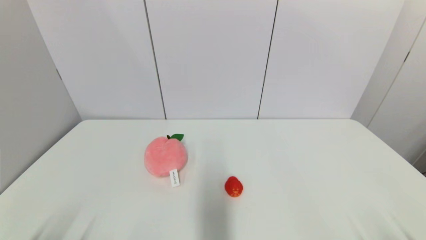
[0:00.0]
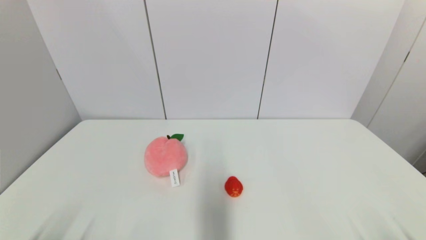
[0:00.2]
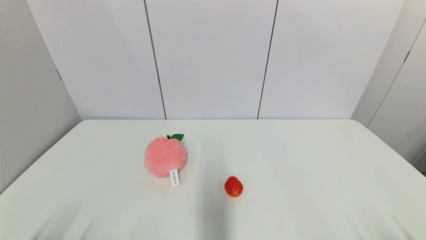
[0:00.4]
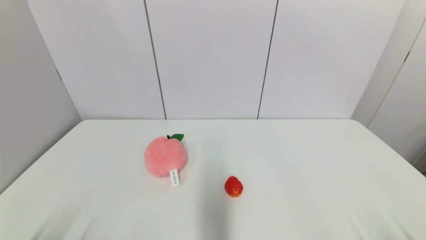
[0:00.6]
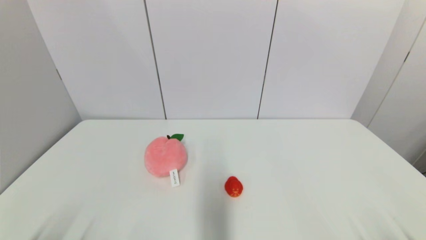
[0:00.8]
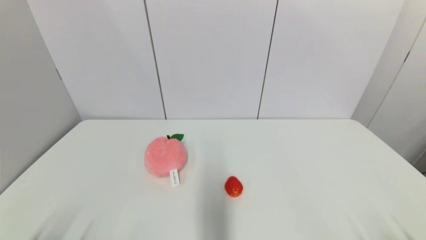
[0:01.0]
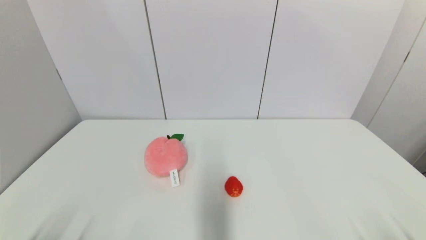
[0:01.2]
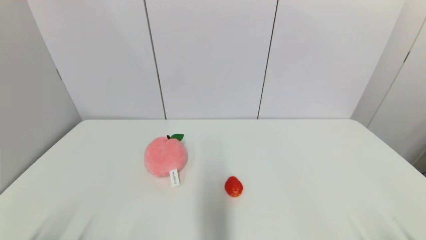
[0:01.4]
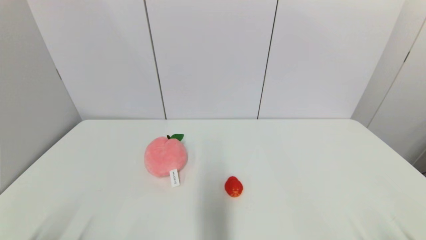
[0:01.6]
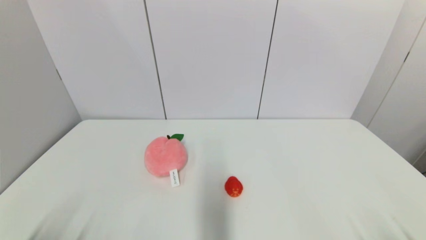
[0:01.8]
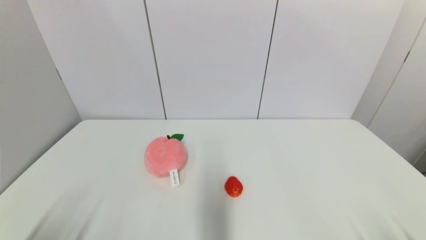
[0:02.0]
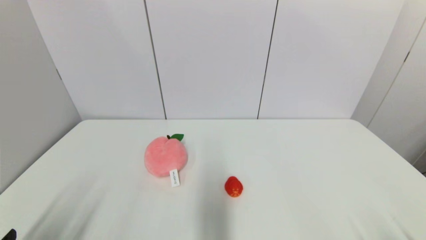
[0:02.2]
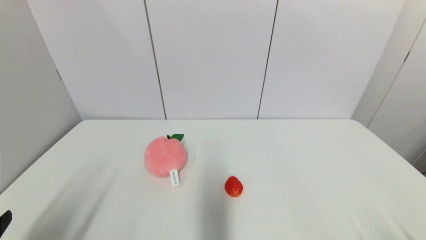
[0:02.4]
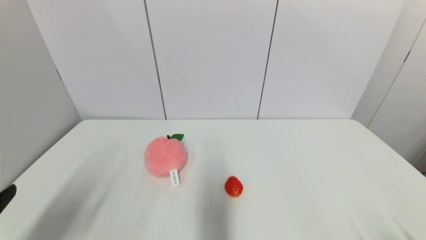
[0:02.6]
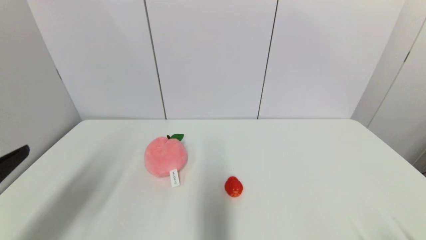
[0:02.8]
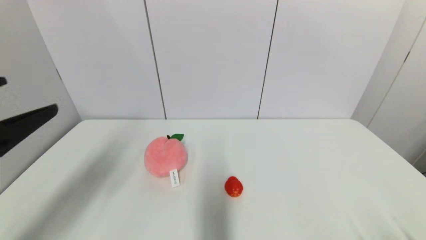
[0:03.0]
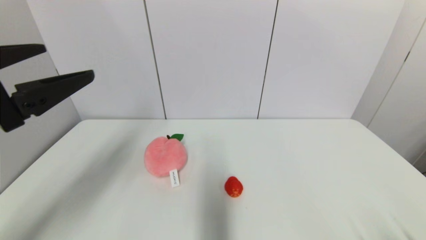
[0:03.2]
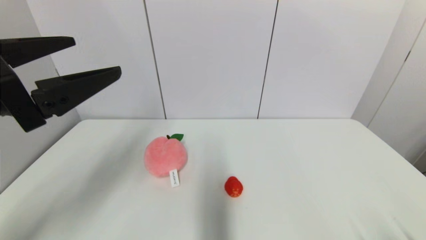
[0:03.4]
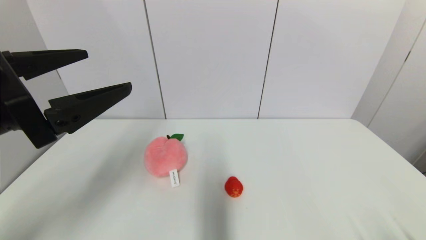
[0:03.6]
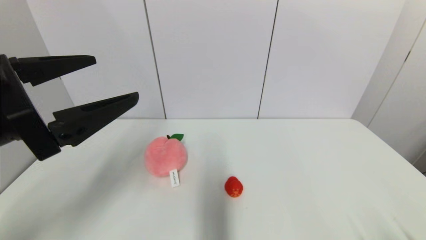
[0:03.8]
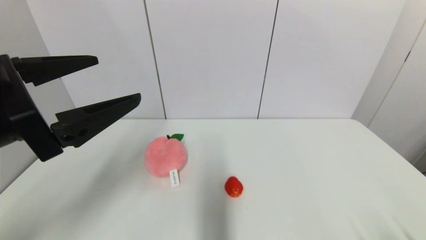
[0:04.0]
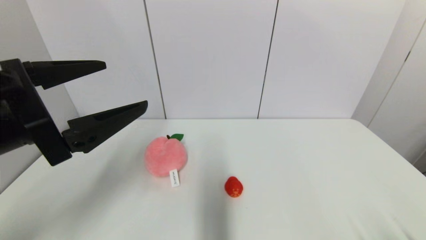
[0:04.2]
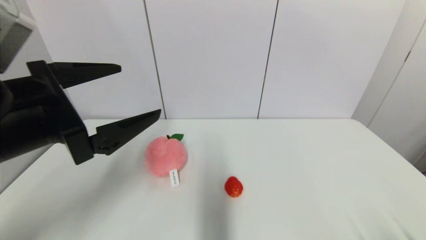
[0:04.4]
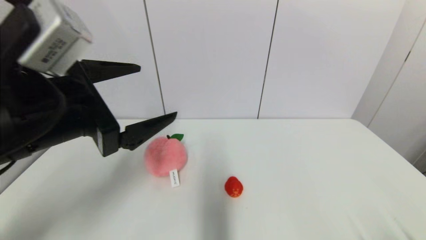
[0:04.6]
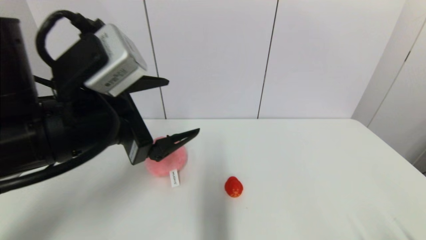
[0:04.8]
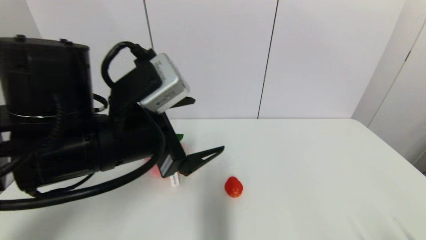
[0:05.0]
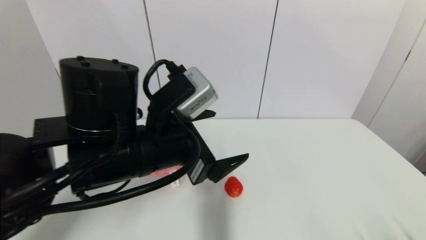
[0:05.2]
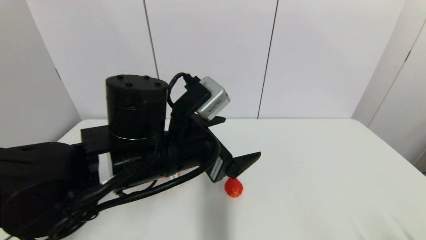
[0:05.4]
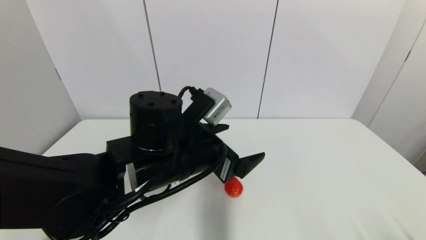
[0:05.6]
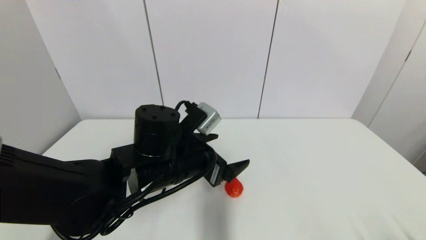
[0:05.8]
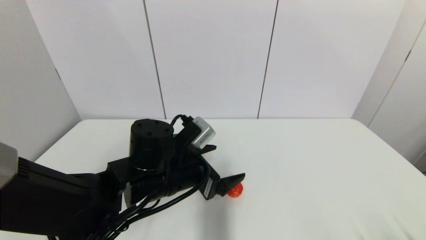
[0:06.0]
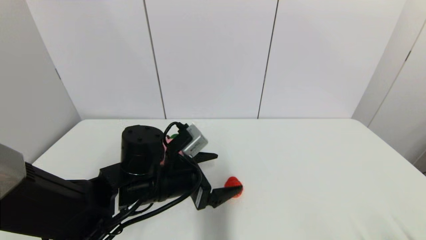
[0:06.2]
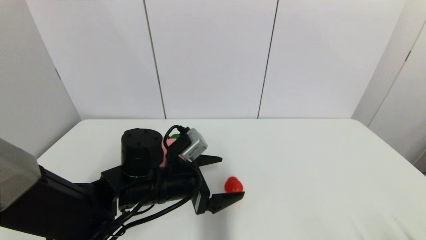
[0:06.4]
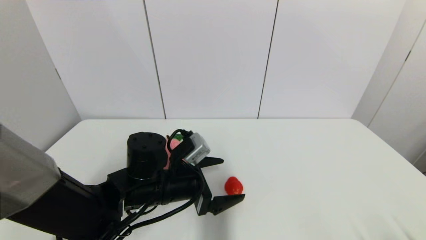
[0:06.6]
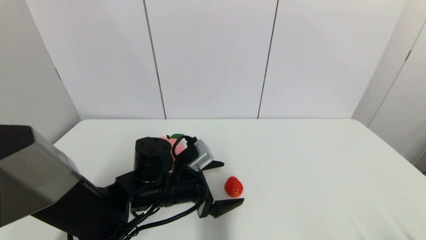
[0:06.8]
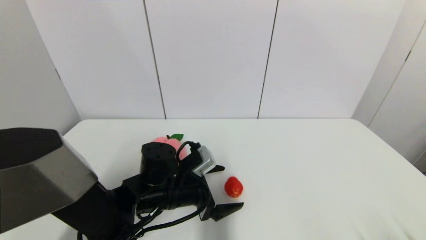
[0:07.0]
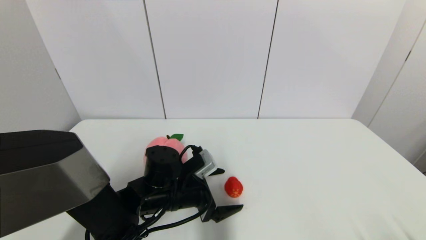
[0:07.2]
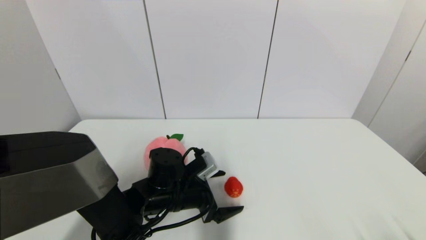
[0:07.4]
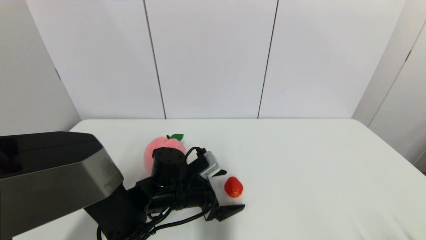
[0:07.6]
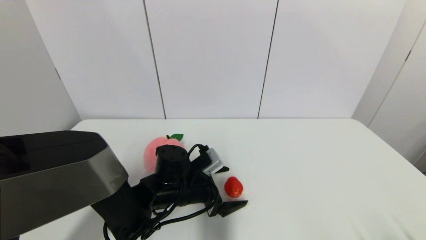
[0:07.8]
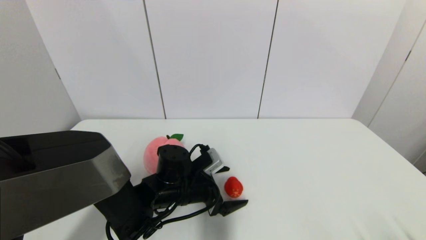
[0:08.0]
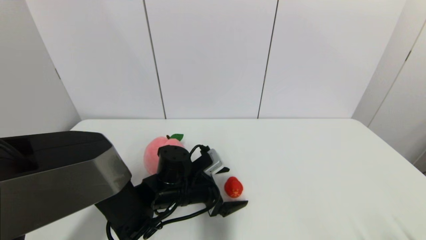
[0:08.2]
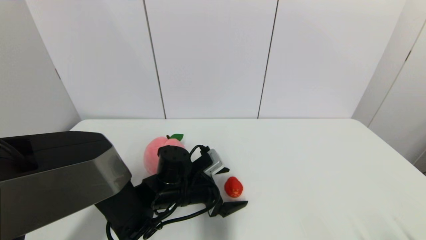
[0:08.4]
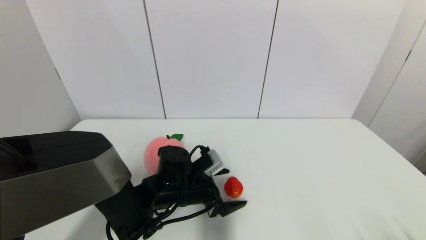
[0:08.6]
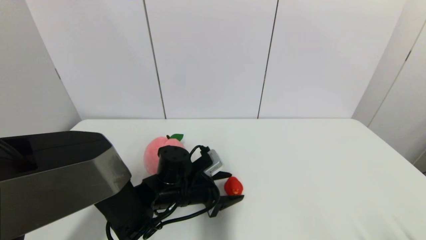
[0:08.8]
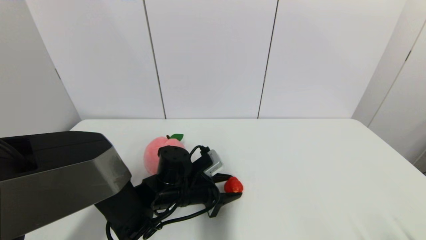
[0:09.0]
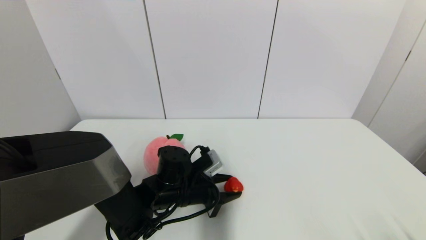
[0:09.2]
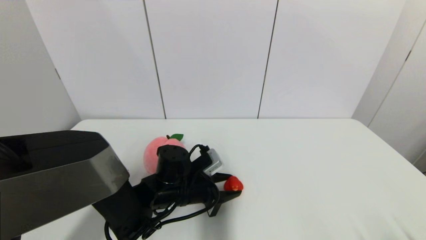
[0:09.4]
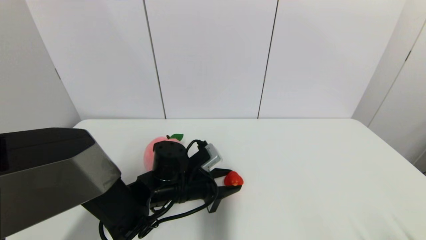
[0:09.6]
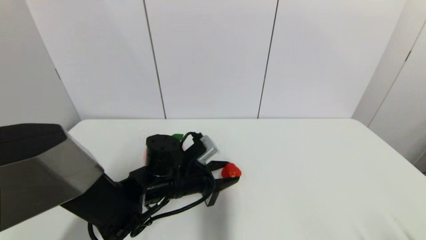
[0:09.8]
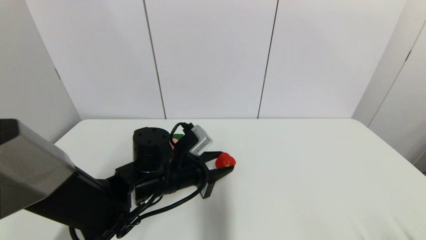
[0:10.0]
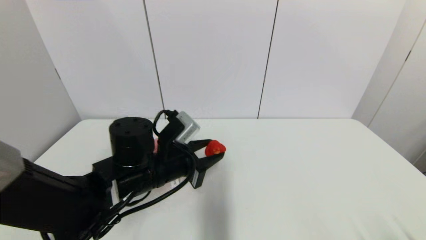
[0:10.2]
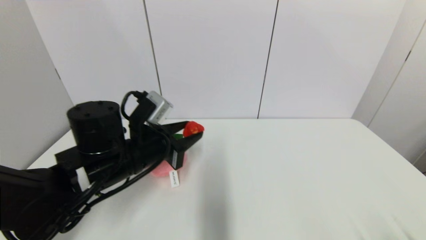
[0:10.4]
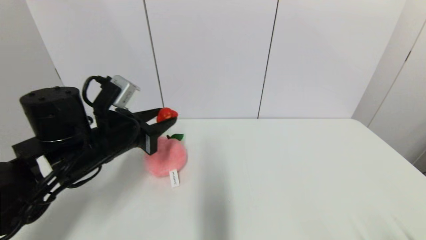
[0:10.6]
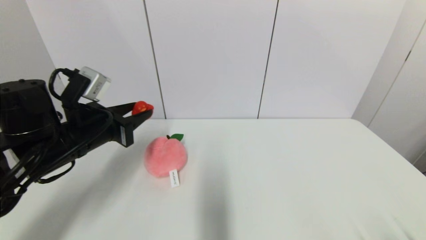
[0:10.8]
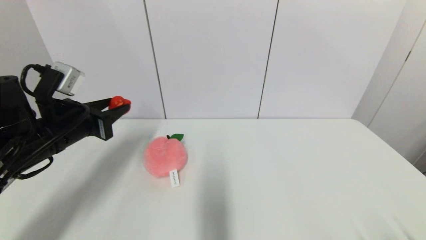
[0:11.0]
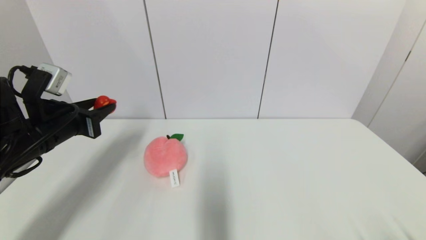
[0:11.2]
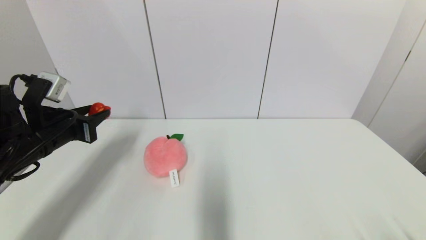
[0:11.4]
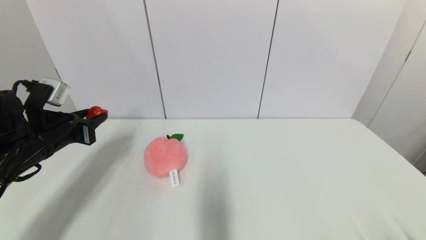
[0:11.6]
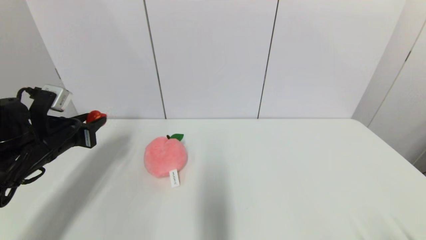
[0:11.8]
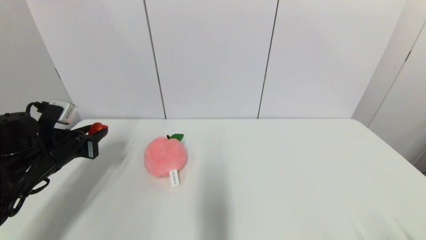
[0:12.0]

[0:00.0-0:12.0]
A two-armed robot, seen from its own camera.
Step, 0:02.2 to 0:09.6: Grasp the red duck with left gripper.
0:00.0 to 0:01.6: Neither gripper changes place.
0:01.6 to 0:03.0: The left gripper moves upward and forward, some 25 cm.
0:03.0 to 0:04.4: The left gripper is displaced to the right by approximately 10 cm.
0:04.4 to 0:06.0: The left gripper goes approximately 20 cm downward, to the right and forward.
0:06.0 to 0:07.6: The left gripper heads downward, covering about 10 cm.
0:07.6 to 0:09.0: The left gripper closes up.
0:09.0 to 0:10.4: The left gripper goes some 15 cm upward and to the left.
0:10.4 to 0:12.0: The left gripper shifts some 15 cm to the left.

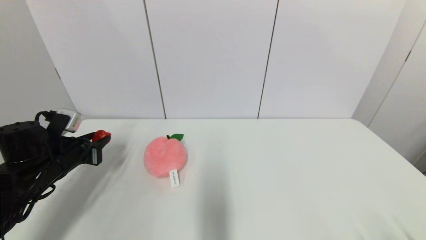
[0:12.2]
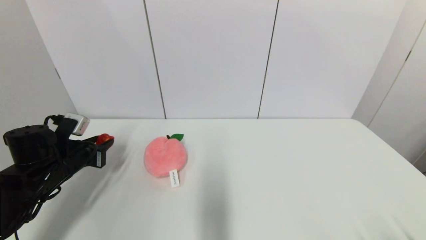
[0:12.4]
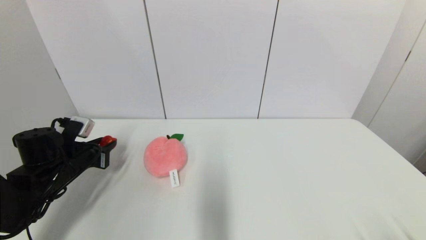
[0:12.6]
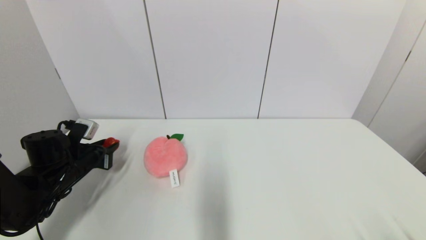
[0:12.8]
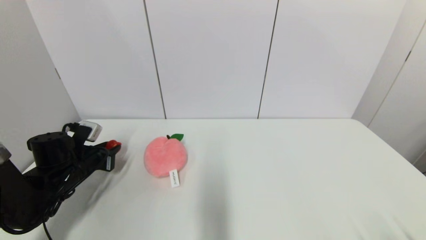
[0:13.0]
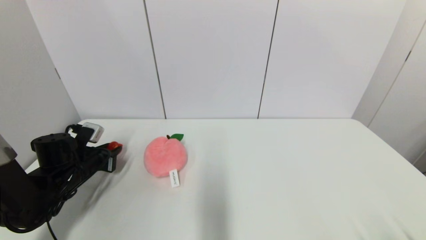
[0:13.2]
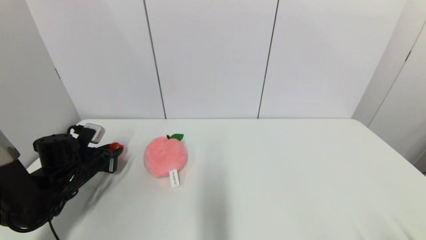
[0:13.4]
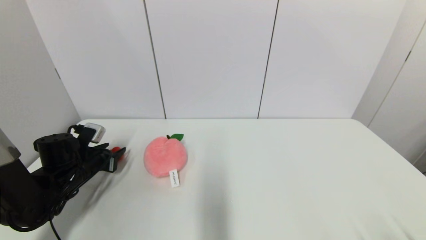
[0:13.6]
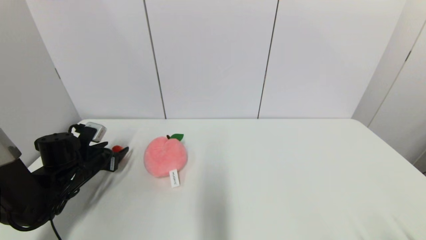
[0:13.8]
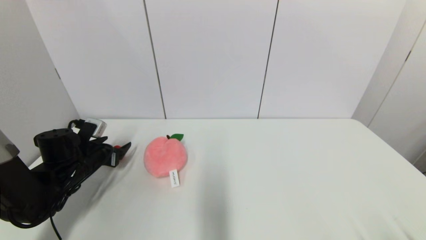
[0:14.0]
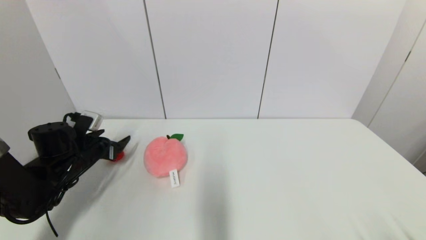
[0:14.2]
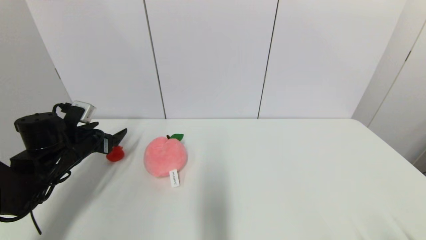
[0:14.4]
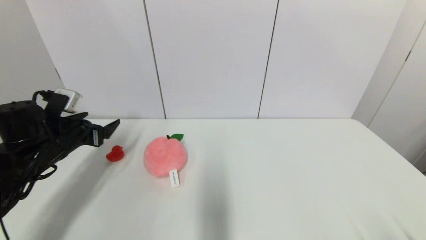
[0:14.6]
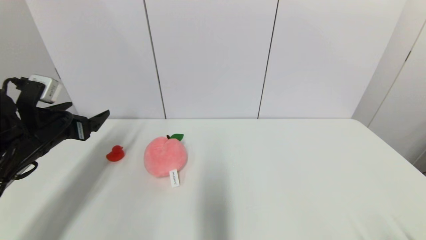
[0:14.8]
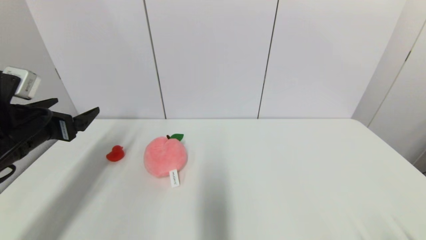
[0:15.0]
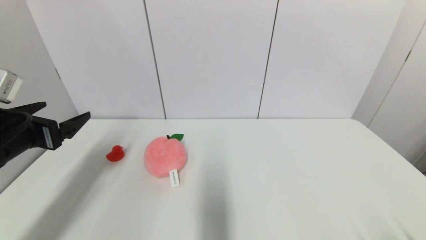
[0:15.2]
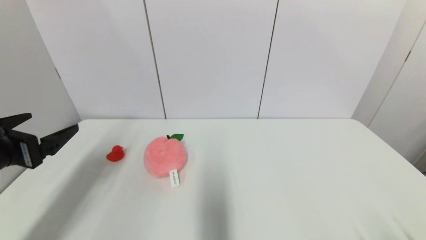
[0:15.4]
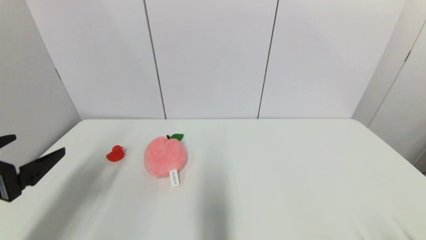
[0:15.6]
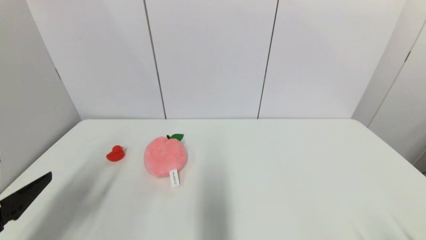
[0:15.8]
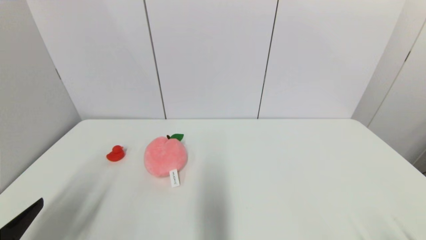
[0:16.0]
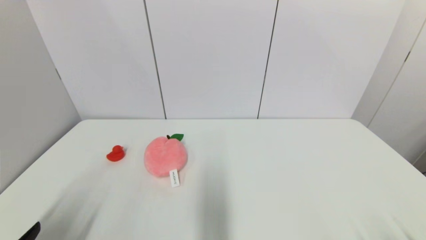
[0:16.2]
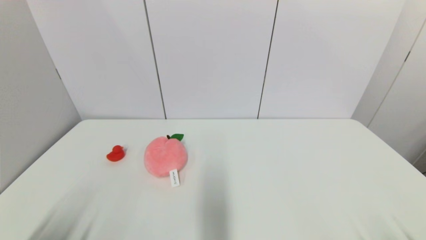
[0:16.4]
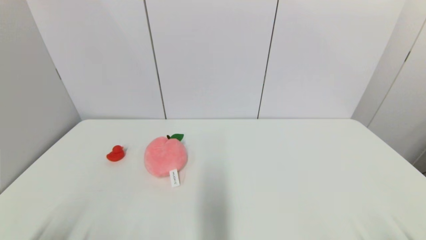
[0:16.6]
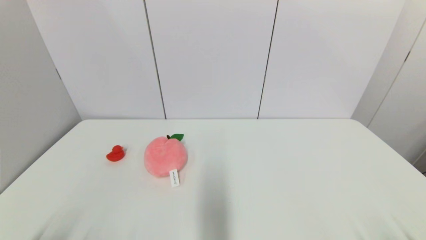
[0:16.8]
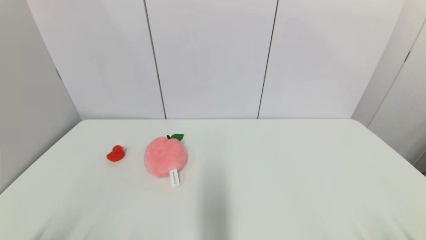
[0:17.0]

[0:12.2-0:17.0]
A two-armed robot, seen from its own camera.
Step, 0:12.2 to 0:14.2: Place the red duck on the table with left gripper.
0:12.2 to 0:13.8: The left gripper travels downward by about 5 cm, and opens its fingers.
0:13.8 to 0:15.4: The left gripper shifts roughly 20 cm upward and backward, and opens its fingers.
0:15.4 to 0:17.0: The left gripper is displaced backward and downward by approximately 25 cm.
